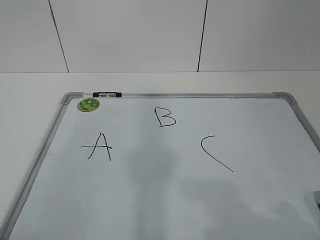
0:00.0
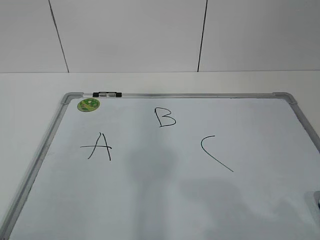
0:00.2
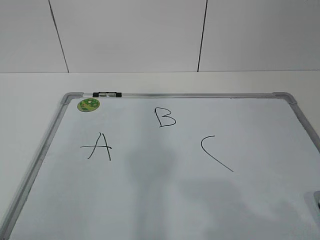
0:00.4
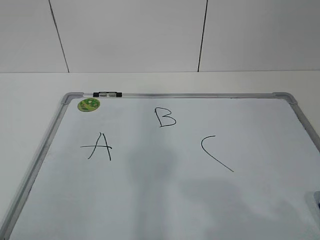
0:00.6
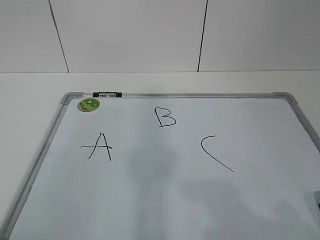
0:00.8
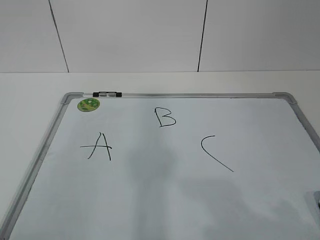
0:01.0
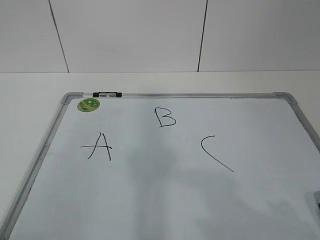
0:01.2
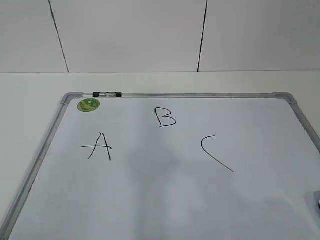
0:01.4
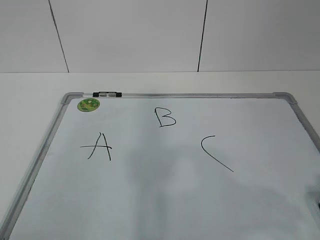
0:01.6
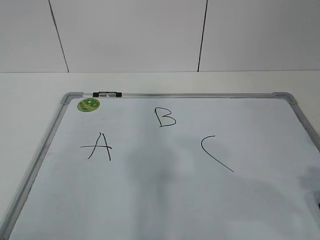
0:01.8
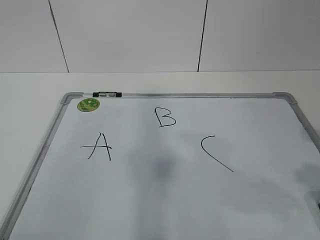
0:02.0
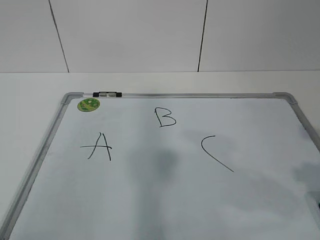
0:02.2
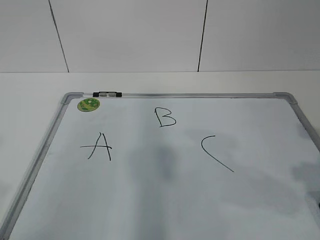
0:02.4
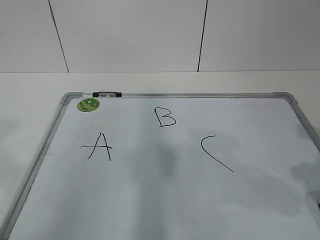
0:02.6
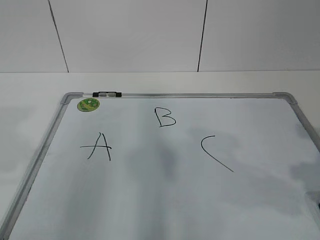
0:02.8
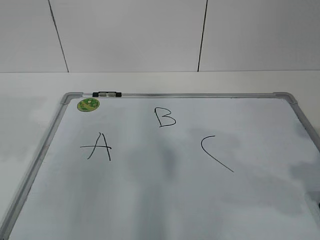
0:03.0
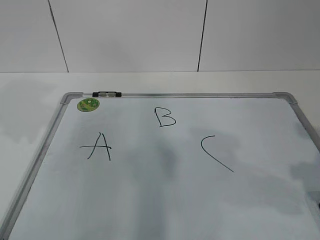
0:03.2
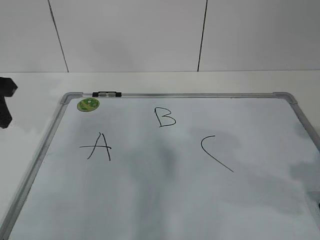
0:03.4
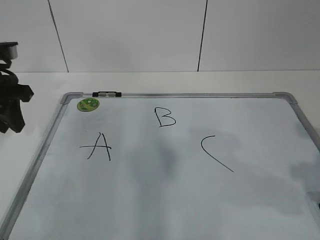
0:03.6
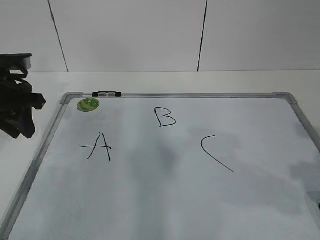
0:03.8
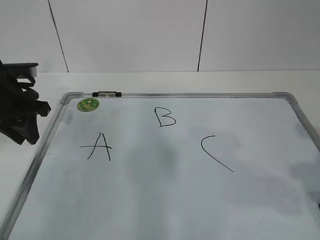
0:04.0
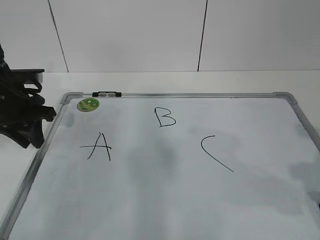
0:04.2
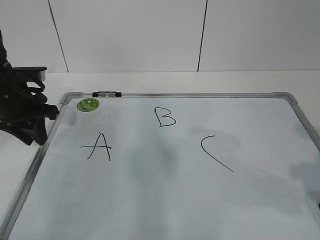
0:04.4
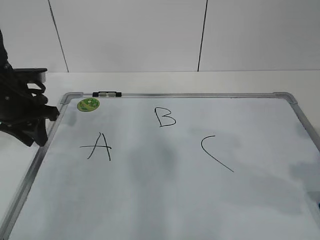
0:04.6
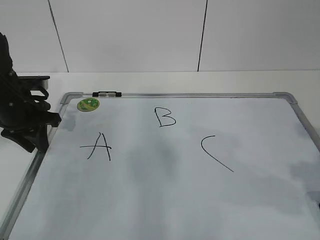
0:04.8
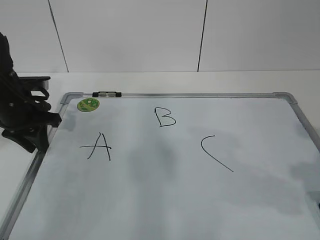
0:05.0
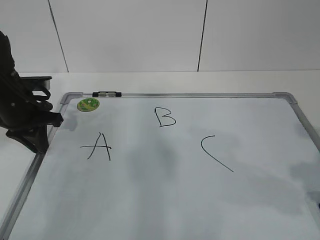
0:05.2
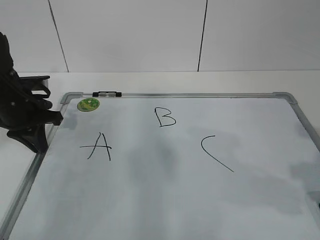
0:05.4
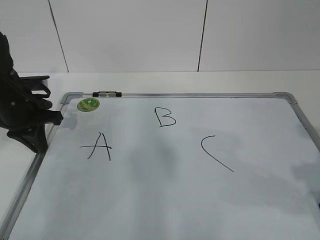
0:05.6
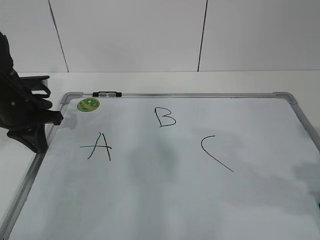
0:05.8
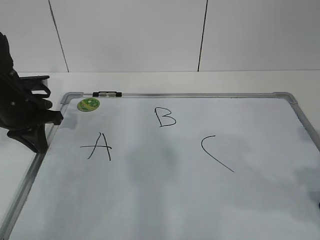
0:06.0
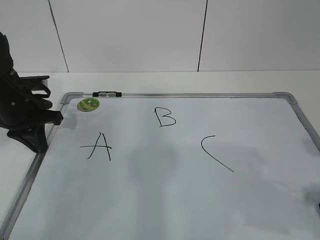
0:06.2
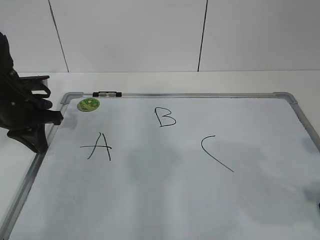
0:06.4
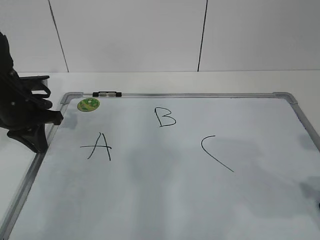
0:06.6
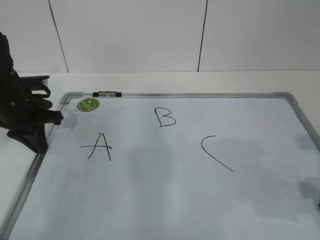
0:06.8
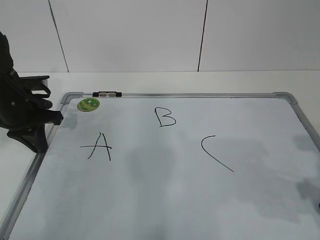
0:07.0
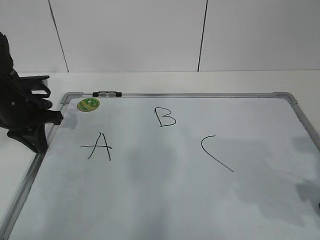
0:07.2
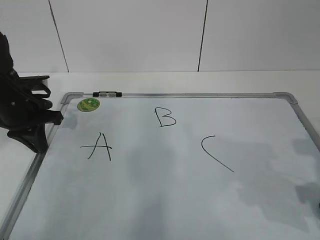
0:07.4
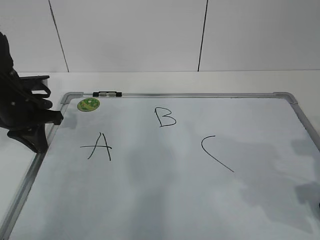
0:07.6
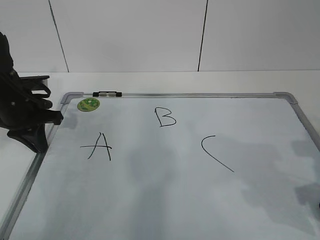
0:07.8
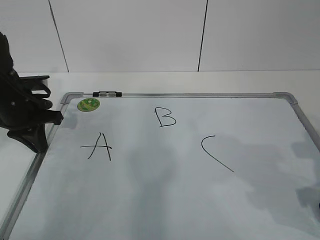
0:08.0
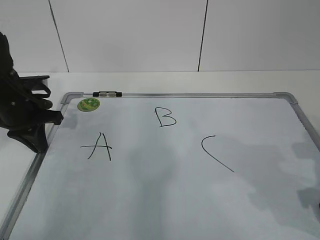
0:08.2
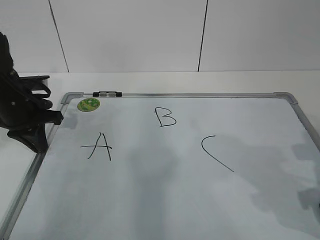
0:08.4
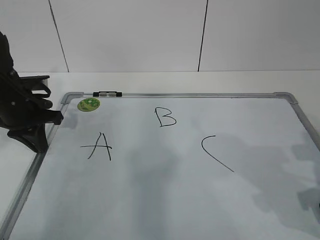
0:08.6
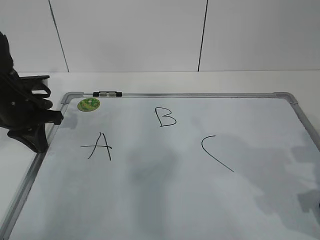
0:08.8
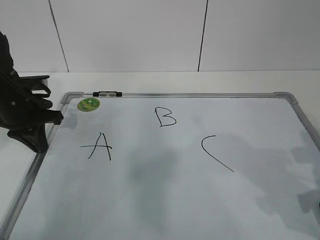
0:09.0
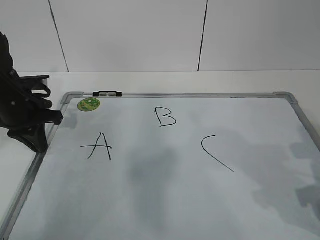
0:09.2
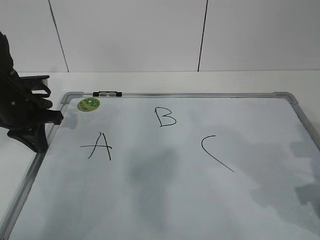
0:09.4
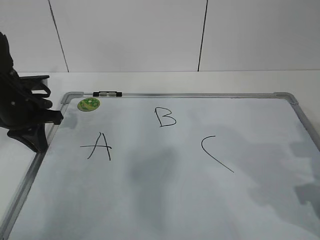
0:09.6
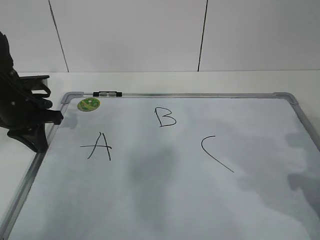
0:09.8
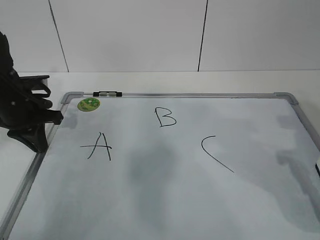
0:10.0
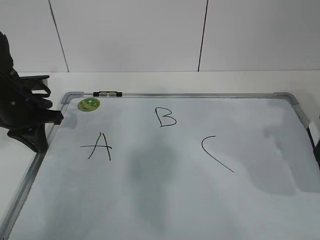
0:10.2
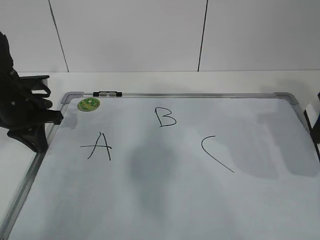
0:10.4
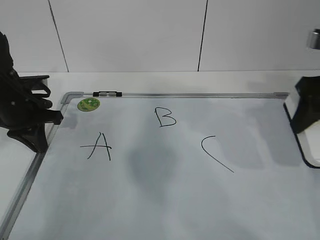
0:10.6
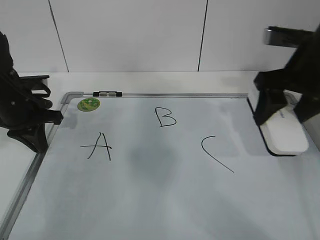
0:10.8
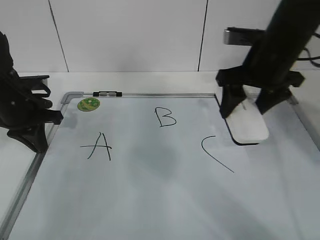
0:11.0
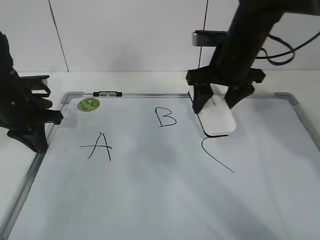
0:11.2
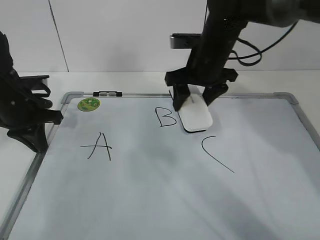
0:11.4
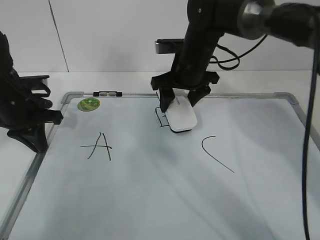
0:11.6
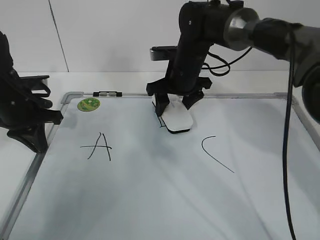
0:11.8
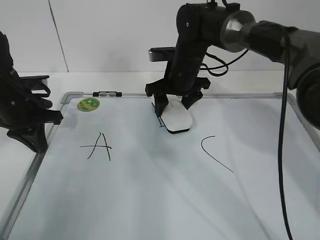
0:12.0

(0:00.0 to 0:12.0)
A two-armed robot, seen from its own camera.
Task of the whole recording: pick up the eraser on the blackboard and erase the letter "B".
Step, 0:00.0 - 0:04.4: Hold the drawing board steady with your left hand.
Step, 0:04.6 - 0:07.2: Grab the eraser with your right hand.
0:01.6 - 0:03.0: The left gripper heads forward, covering roughly 20 cm.
0:03.0 - 0:04.4: The left gripper moves forward and downward, some 20 cm.
0:04.4 - 0:06.0: The left gripper closes.
0:09.0 - 0:10.4: The right gripper travels upward and forward by approximately 15 cm.
0:10.4 - 0:12.0: The right gripper is displaced to the left, forward and downward by about 30 cm.

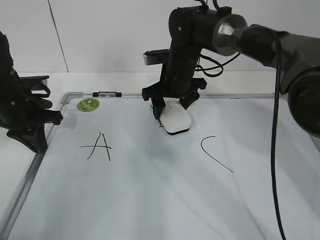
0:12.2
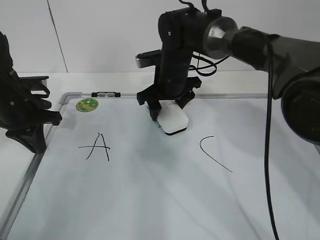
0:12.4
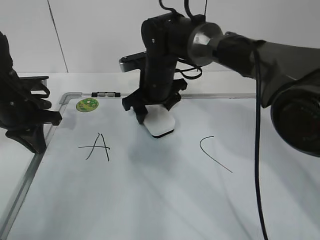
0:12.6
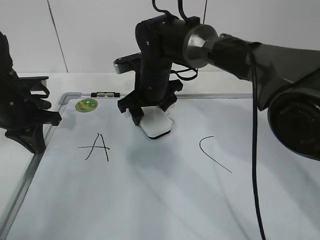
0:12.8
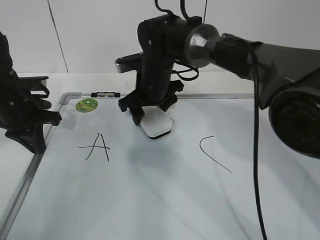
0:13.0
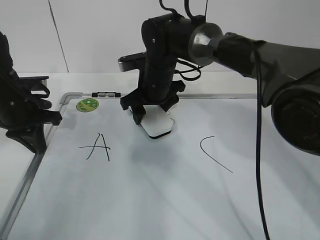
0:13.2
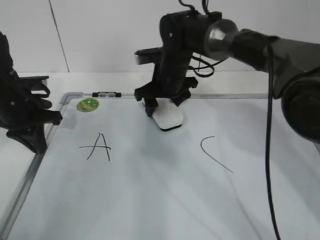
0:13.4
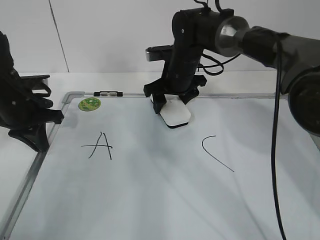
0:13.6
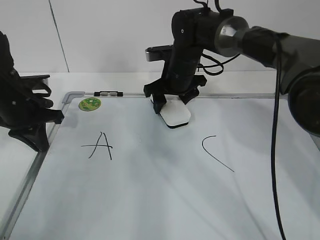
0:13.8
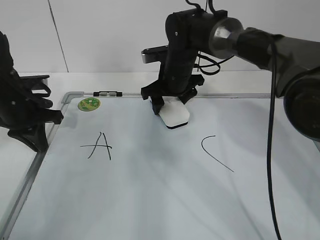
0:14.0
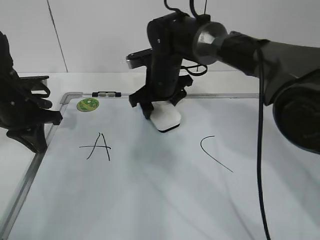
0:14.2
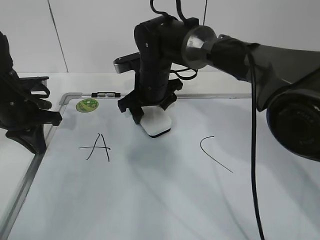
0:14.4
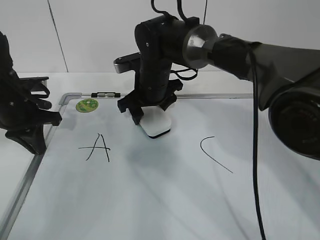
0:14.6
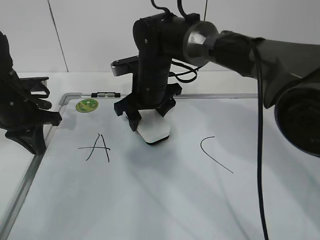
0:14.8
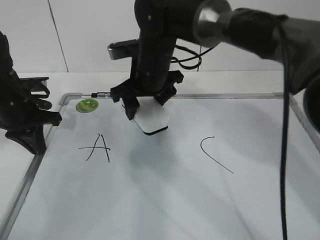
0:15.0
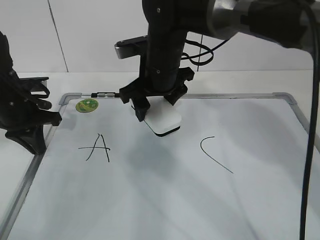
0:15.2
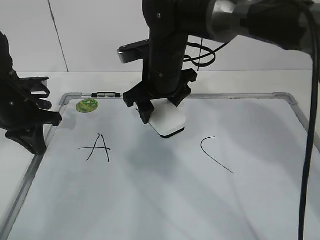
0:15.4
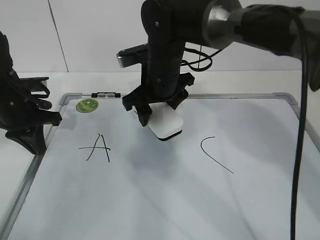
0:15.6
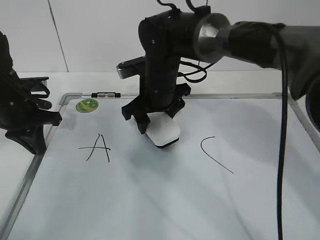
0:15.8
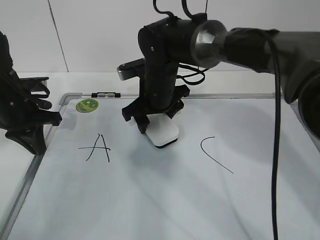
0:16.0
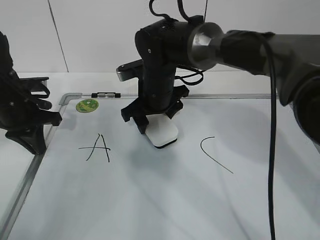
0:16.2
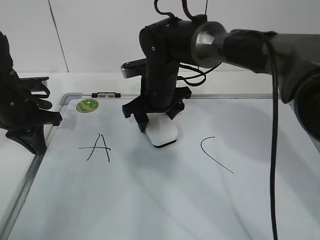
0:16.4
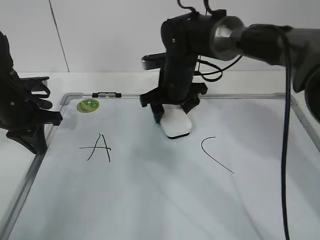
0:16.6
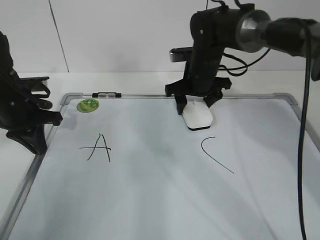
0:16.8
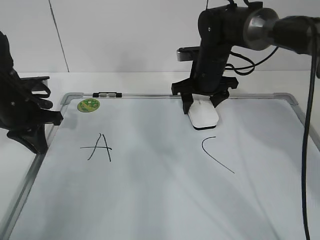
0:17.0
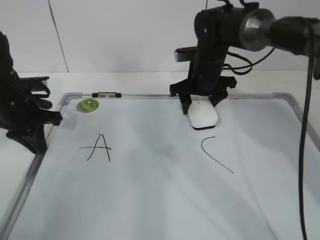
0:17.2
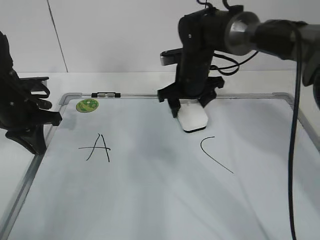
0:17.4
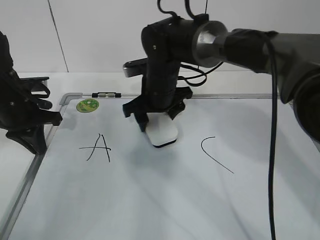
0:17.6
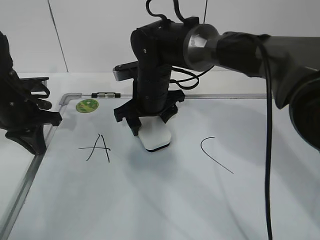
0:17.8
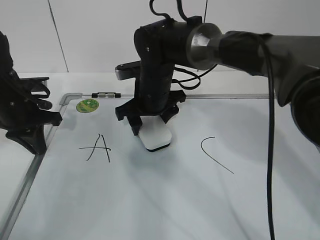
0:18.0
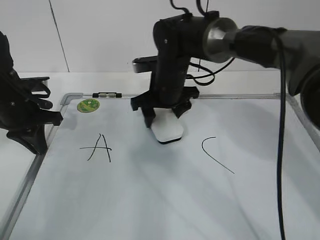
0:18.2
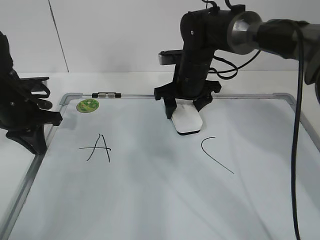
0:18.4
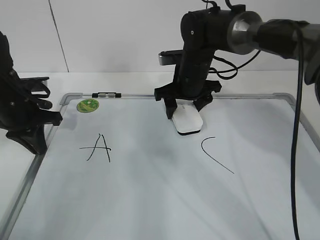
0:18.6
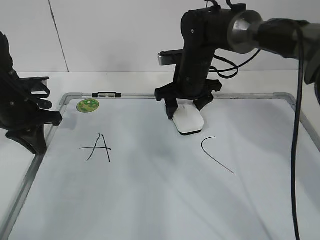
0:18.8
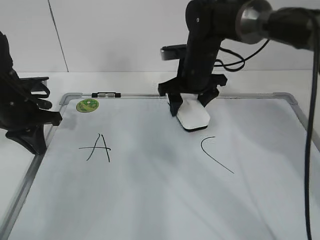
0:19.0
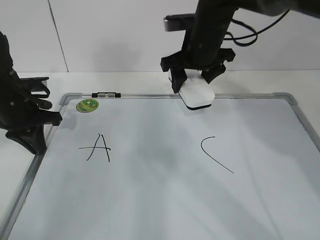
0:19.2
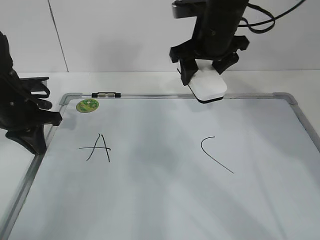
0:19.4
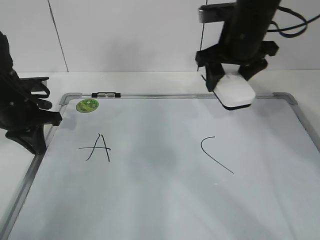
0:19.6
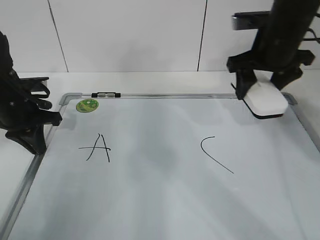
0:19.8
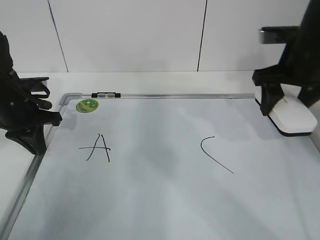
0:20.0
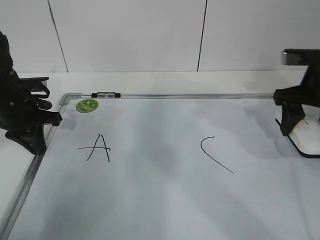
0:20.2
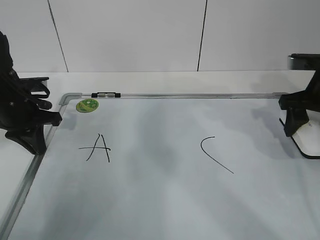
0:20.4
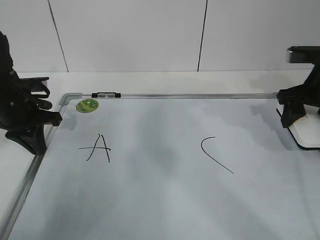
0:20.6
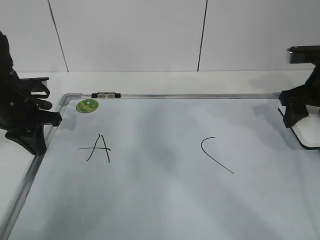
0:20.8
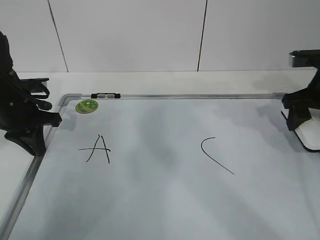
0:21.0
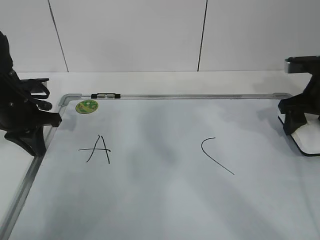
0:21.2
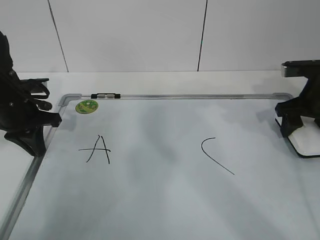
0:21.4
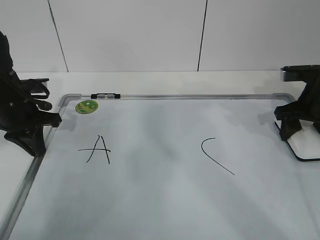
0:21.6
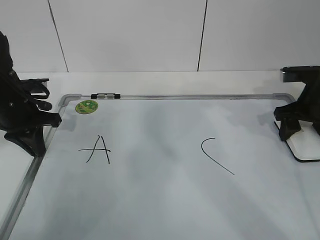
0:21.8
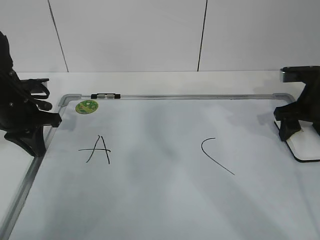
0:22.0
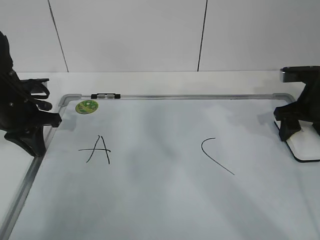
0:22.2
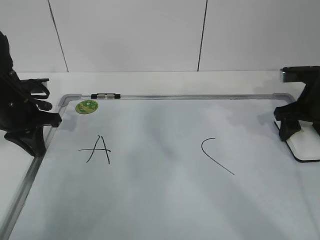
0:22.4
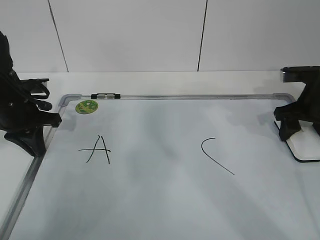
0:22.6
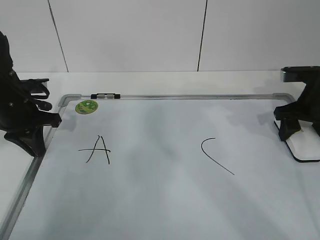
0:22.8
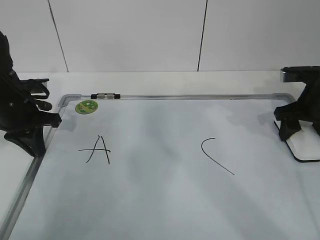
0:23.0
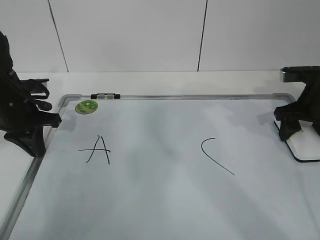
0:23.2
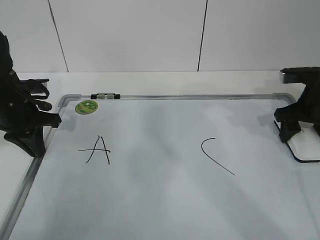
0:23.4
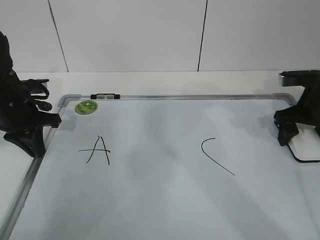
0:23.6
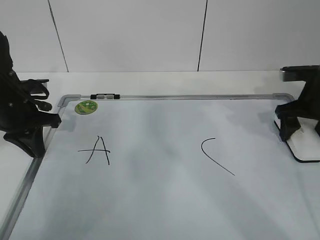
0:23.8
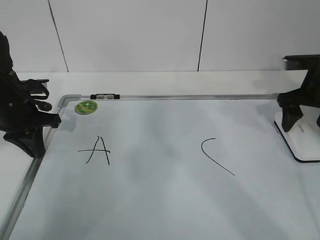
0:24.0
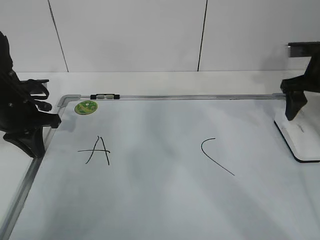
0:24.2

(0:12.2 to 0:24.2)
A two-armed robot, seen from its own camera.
Task of the whole recording: pick up the eraser on the blackboard and erase the letter "B".
Step, 0:12.2 - 0:15.6: Erase the letter B with your right hand.
Step, 0:15.8 - 0:19.4: Put down the eraser with your right hand.
0:12.2 - 0:13.8: There are only small adjustments of the grippers.
0:13.8 - 0:15.2: The right gripper travels backward, upward and to the left by about 10 cm.
0:15.2 - 0:16.6: The right gripper goes some 5 cm downward.
0:16.6 - 0:18.2: The right gripper moves left and right over about 15 cm, changing direction 2 times.
0:18.2 - 0:19.8: The right gripper is displaced to the right and upward by some 20 cm.
0:19.8 - 0:21.2: The right gripper moves to the right and downward, roughly 15 cm.
0:21.2 - 0:22.6: There are only small adjustments of the grippers.
0:22.6 - 0:24.2: The right gripper is displaced upward by some 5 cm, and opens its fingers.
